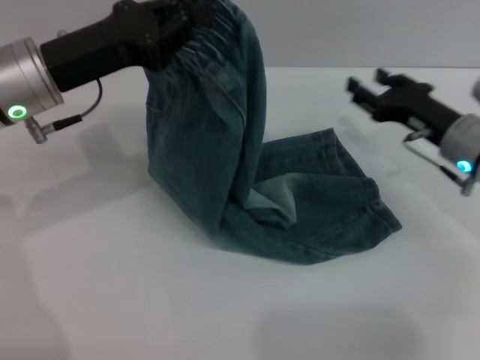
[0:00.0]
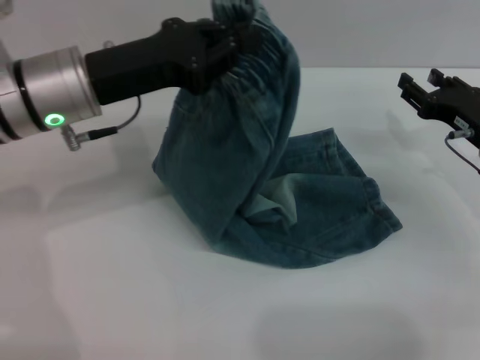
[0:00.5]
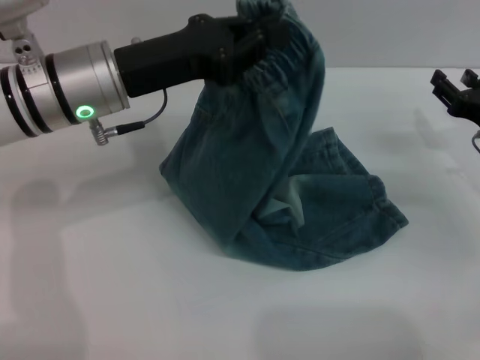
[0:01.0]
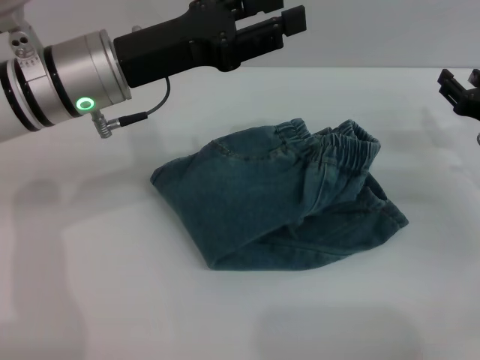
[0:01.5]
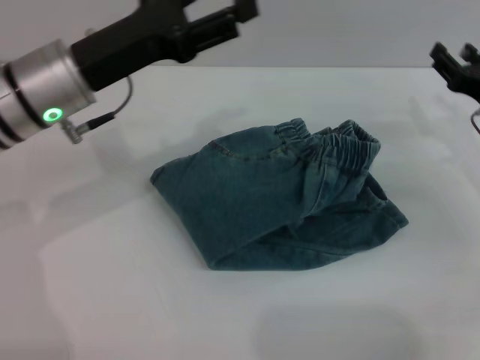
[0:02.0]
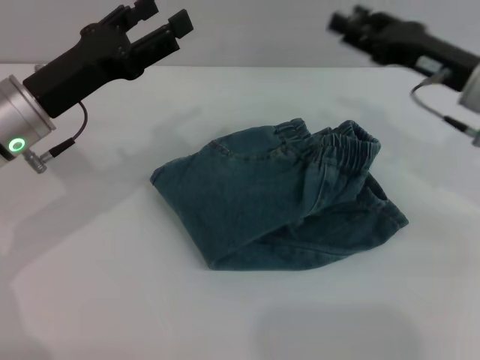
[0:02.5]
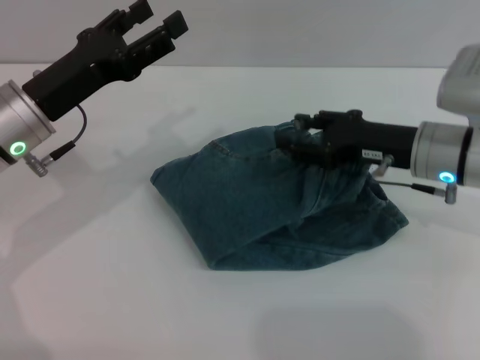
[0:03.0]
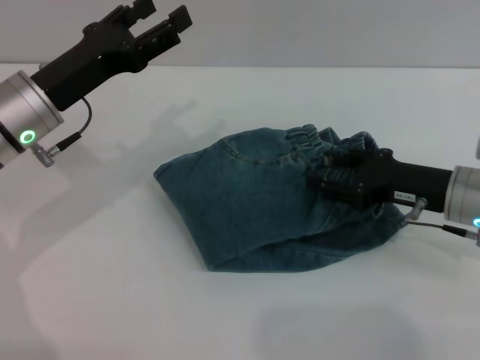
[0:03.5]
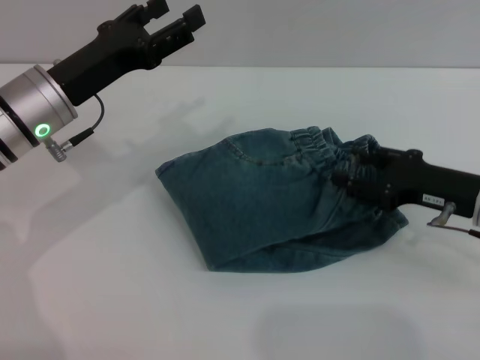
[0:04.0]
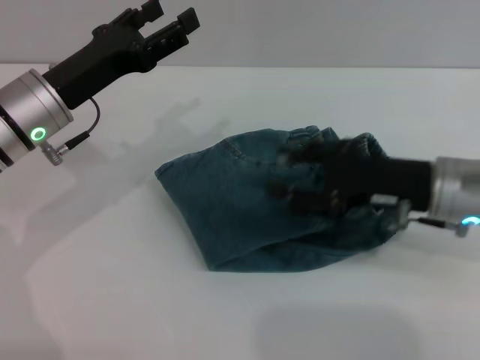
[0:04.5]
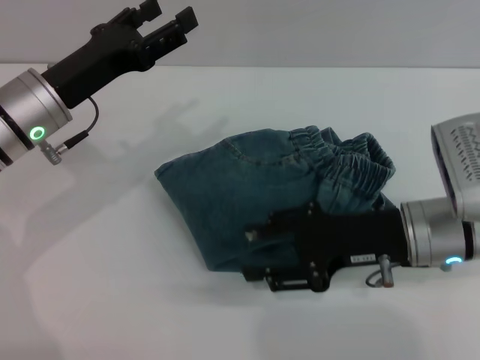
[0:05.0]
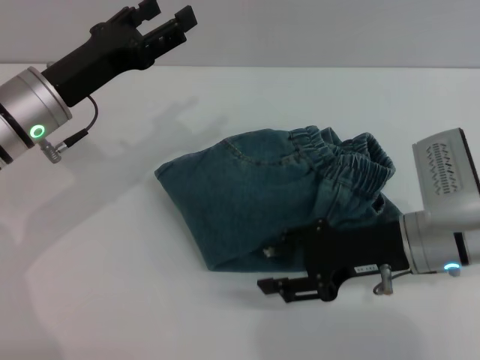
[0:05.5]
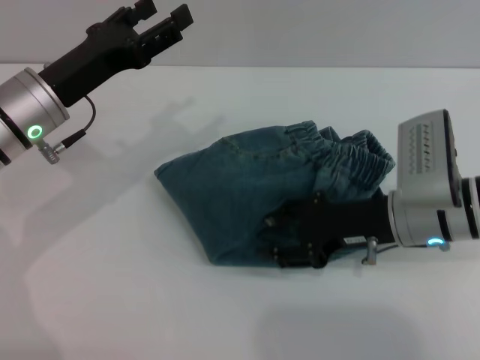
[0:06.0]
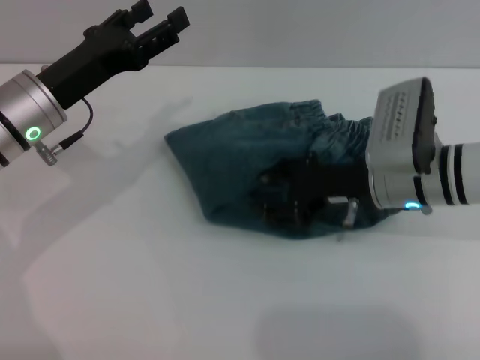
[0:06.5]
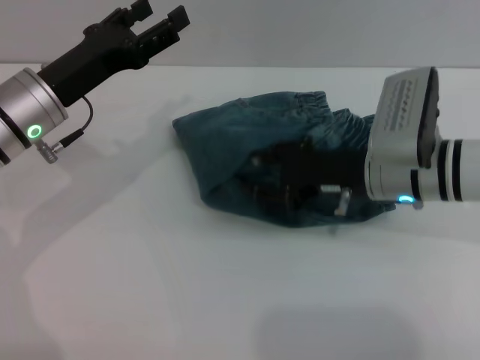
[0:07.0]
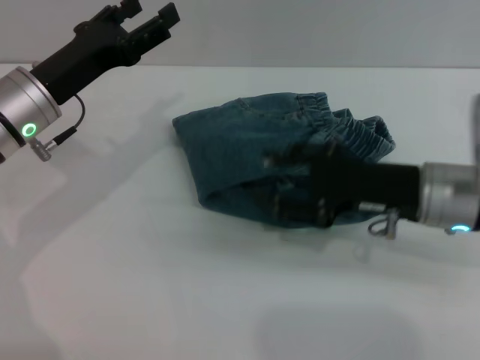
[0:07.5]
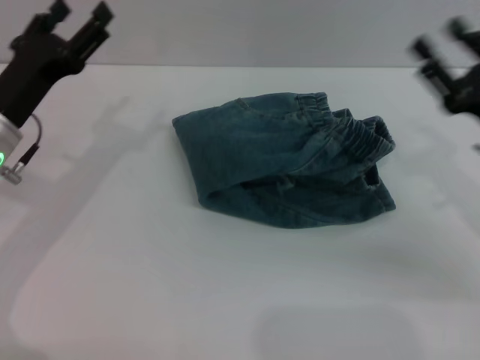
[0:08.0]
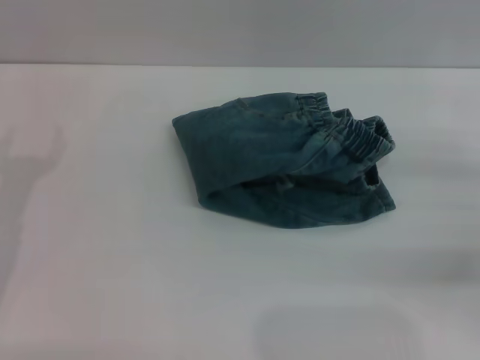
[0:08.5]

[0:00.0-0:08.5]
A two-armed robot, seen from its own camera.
Step, 0:02.0 to 0:07.5: Place the folded trousers onto the center area with the right grippers.
0:00.0 to 0:02.0: The right gripper heads to the right, covering roughly 5 cm. The left gripper opens up.
0:02.0 to 0:04.0: The right gripper moves backward, approximately 5 cm.
0:04.0 to 0:06.5: The right gripper heads to the left, covering approximately 10 cm.
0:06.5 to 0:08.5: The right gripper travels to the right and backward by approximately 20 cm. Meanwhile the left gripper travels backward, to the left and downward by roughly 15 cm.

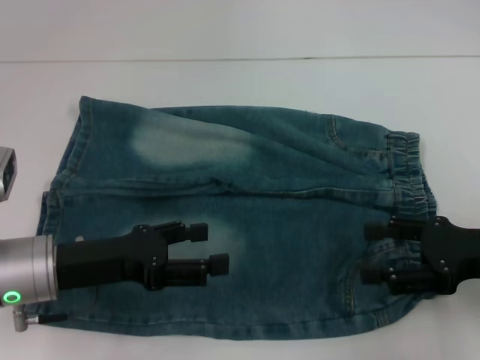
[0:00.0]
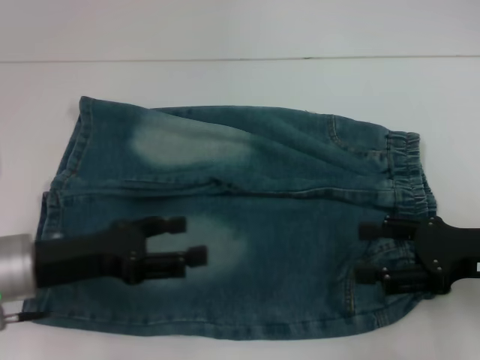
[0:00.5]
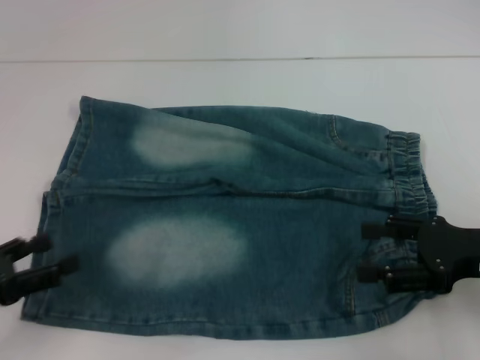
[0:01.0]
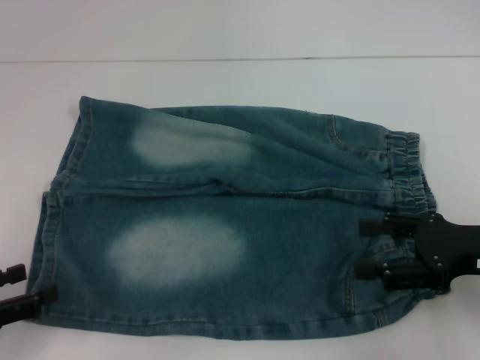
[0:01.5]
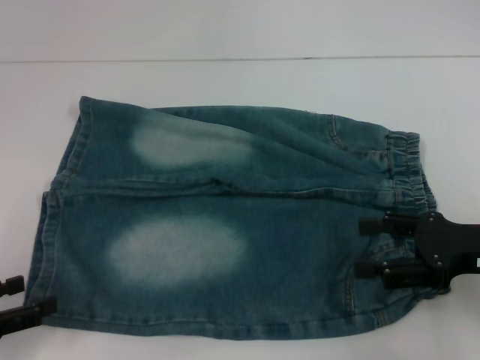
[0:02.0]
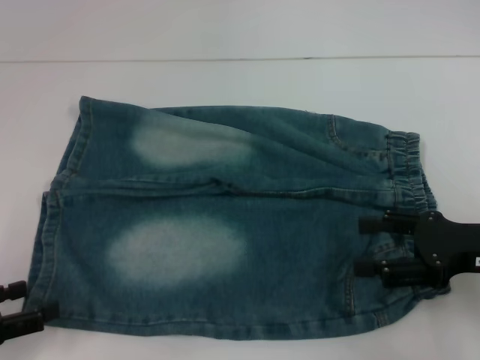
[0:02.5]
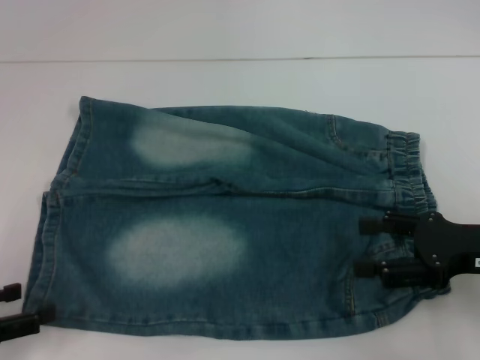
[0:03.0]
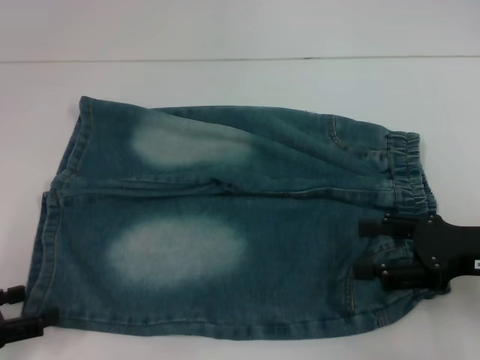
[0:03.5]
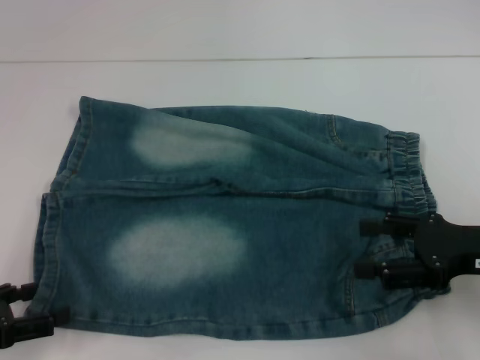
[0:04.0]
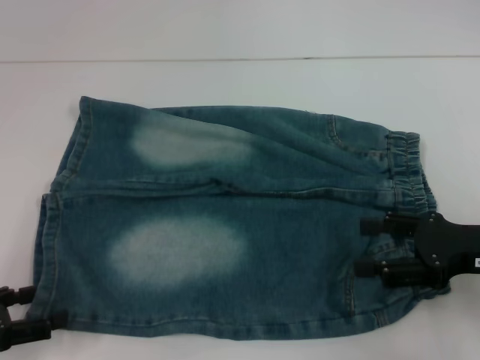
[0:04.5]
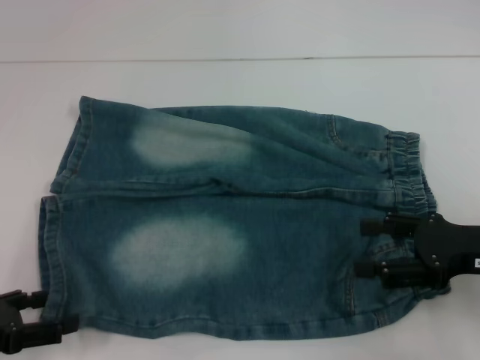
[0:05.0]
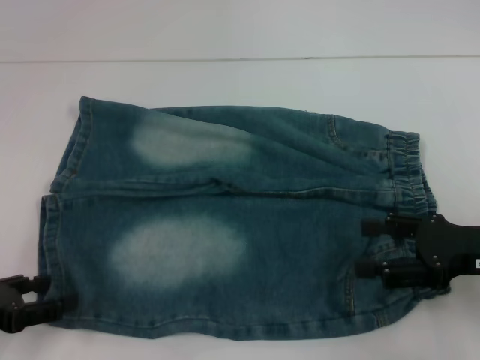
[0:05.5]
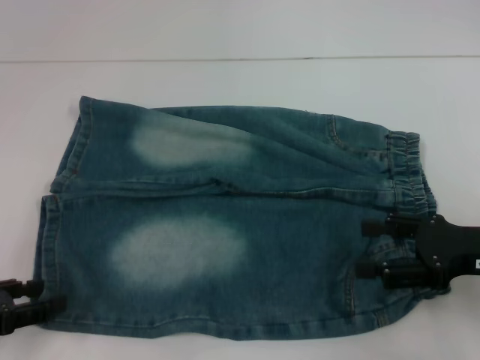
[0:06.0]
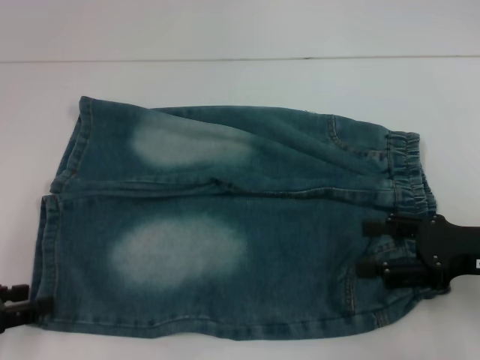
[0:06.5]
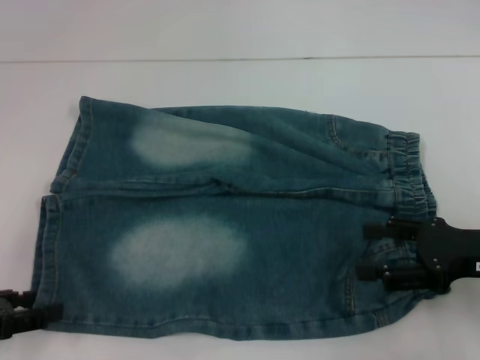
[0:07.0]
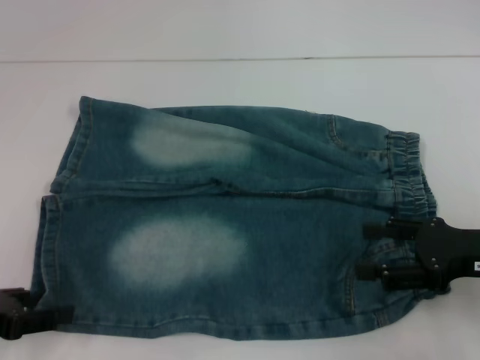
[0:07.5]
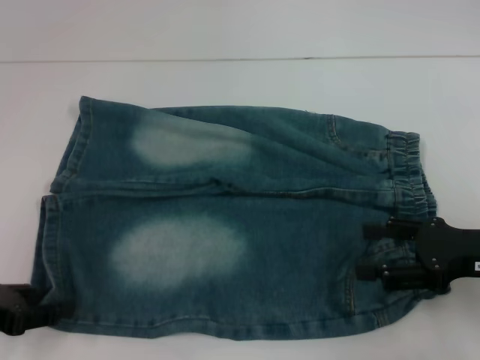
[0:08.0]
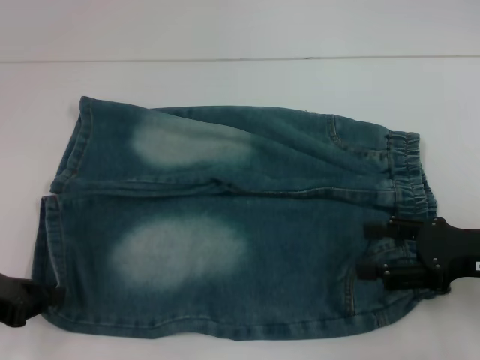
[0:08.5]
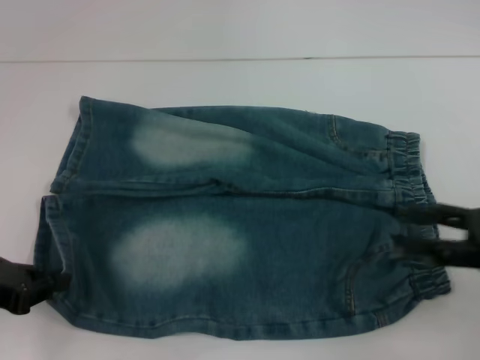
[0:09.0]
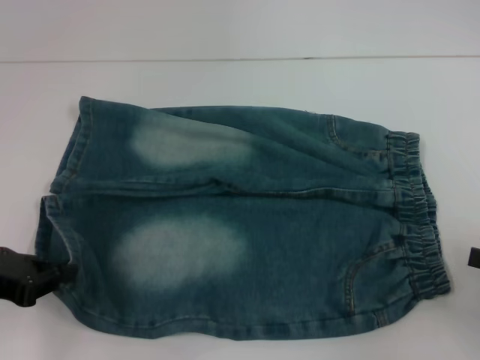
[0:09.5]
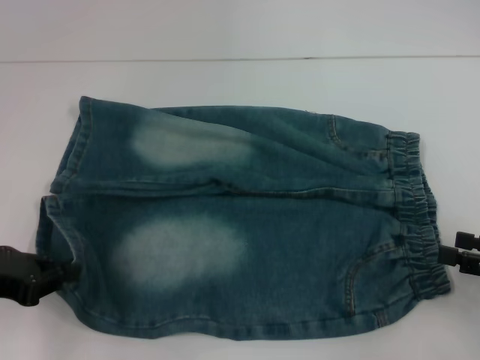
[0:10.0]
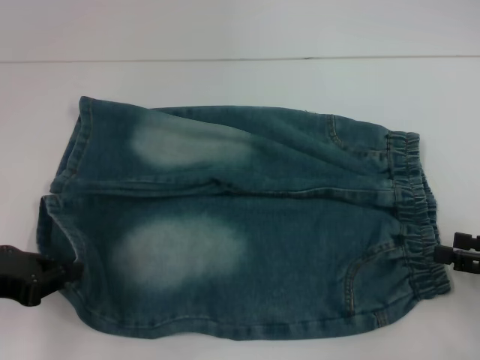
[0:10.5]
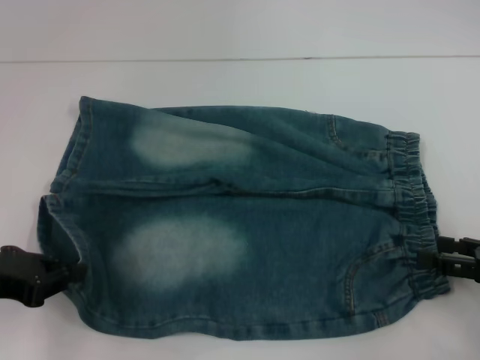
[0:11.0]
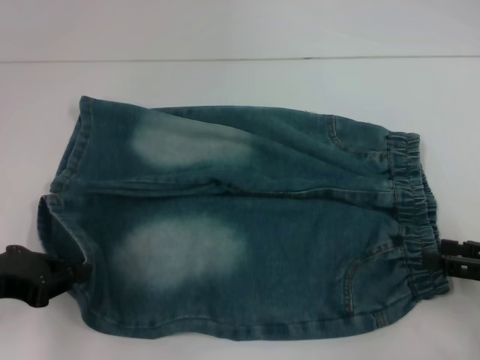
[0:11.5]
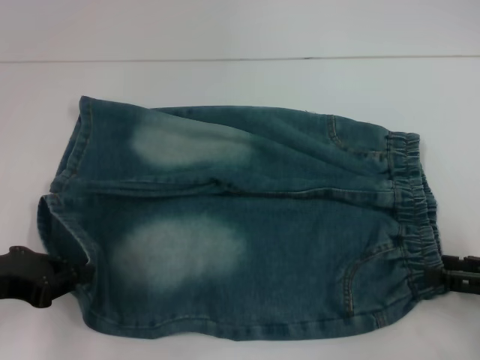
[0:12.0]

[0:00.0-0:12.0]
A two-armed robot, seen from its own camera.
Step, 0:00.0 to 0:07.5: Grab the lower left pant leg with your left hand.
0:00.0 to 0:02.0: The left gripper is displaced to the left and backward by roughly 15 cm.
0:02.0 to 0:06.0: The grippers make only small movements.
0:08.0 to 0:10.0: The right gripper travels to the right by some 10 cm. Meanwhile the left gripper closes its fingers.
0:10.0 to 0:12.0: The grippers stay close to where they were, moving slightly.

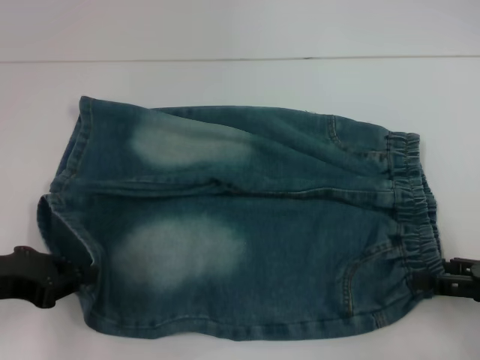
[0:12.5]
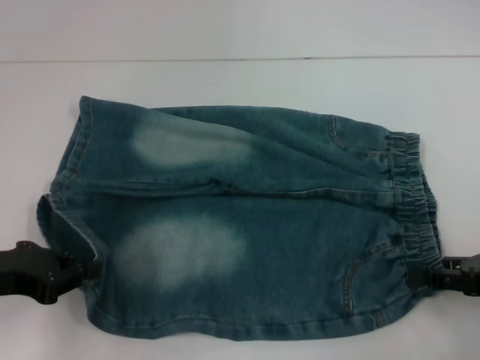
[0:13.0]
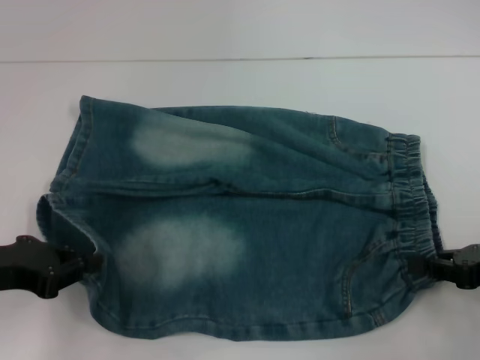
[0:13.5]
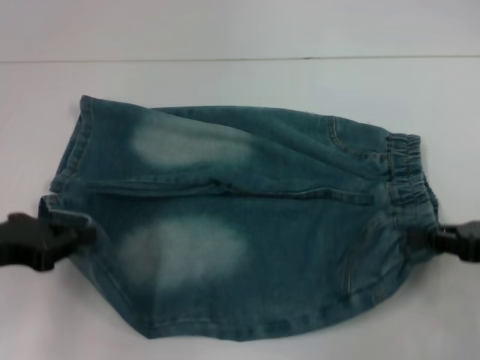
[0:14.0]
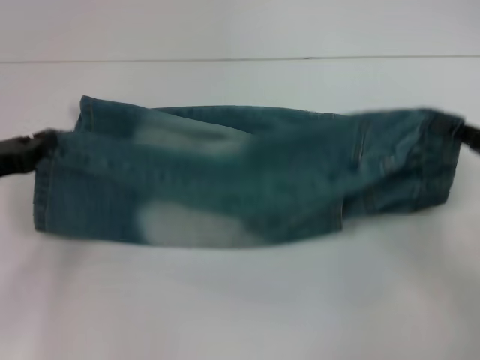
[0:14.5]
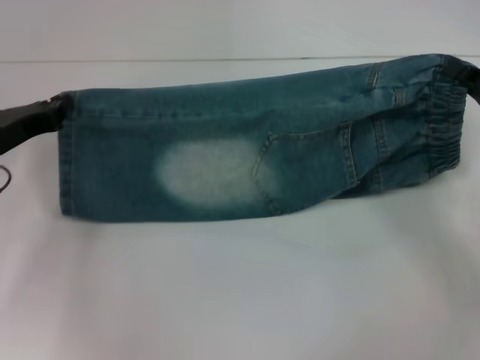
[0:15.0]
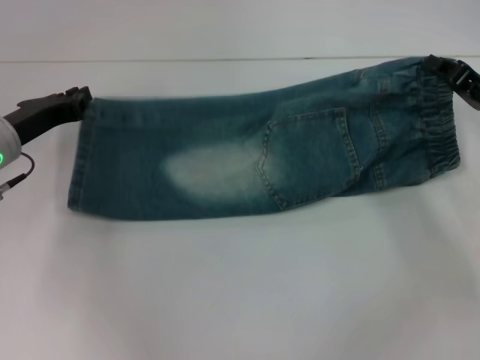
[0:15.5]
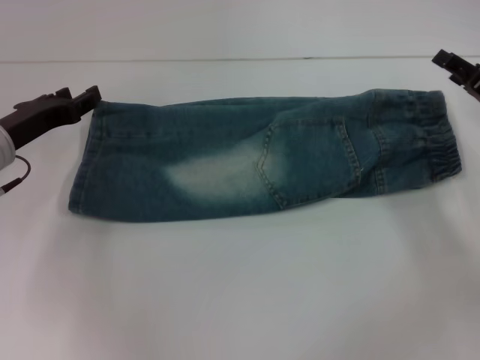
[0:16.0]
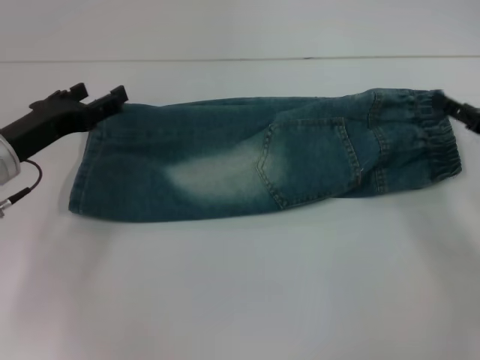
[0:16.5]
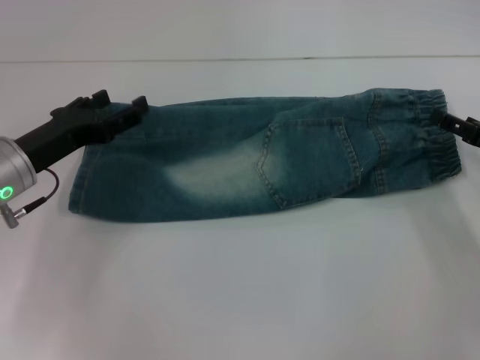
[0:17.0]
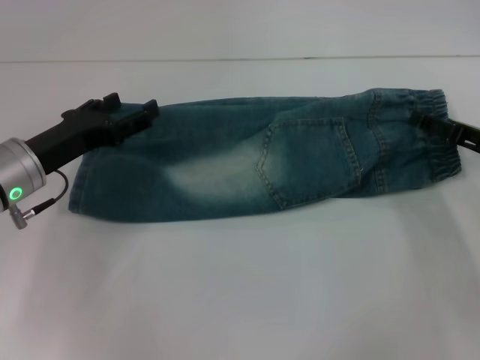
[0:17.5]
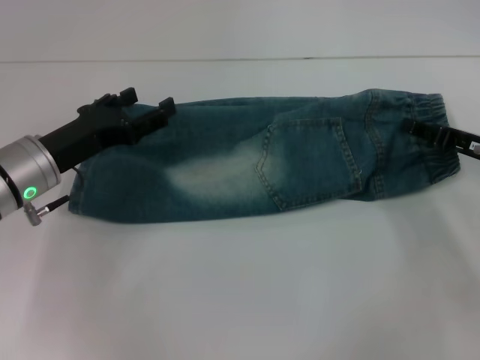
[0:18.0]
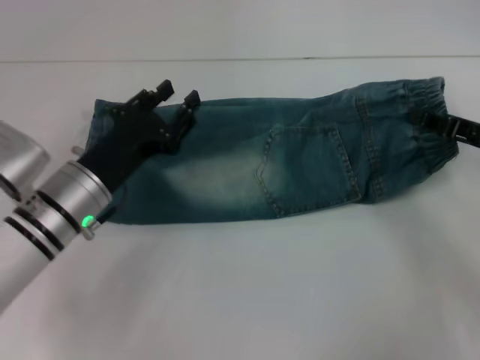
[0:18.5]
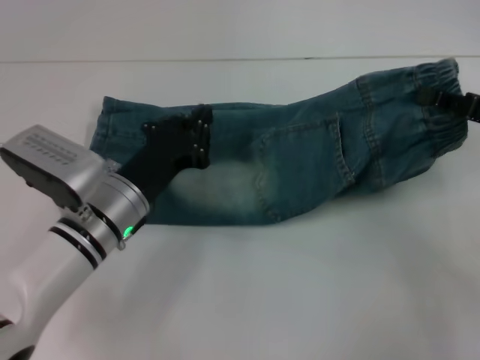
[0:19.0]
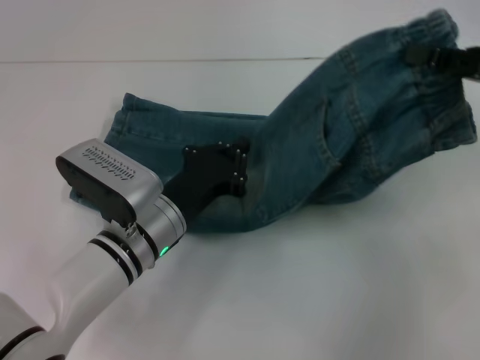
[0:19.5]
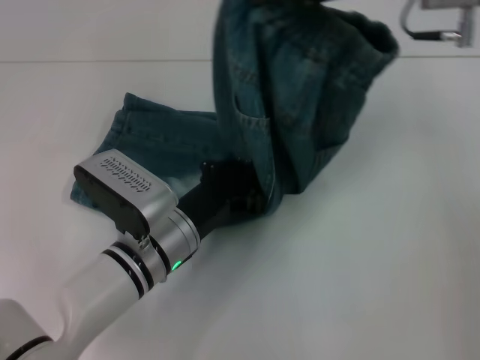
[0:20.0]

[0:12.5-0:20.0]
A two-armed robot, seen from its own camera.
Step, 0:13.0 to 0:15.5: Fold upward with your left hand.
Step, 0:16.5 to 0:18.0: Grab the waistband with your right hand.
0:12.5 to 0:14.5: The grippers both shift forward by roughly 5 cm. The right gripper closes up.
0:14.5 to 0:16.5: The left gripper moves to the right, some 5 cm, and opens its fingers, while the right gripper opens its fingers.
0:16.5 to 0:18.0: The grippers move only a little.
0:18.0 to 0:20.0: The left gripper moves to the right and downward, about 15 cm, and closes its fingers, while the right gripper travels upward and to the left by roughly 25 cm, and closes its fingers.
